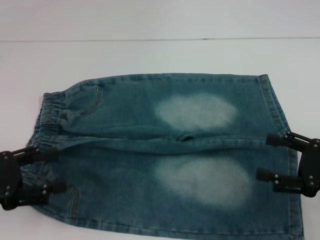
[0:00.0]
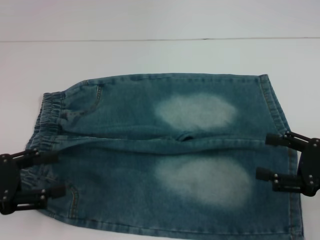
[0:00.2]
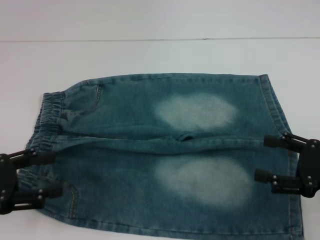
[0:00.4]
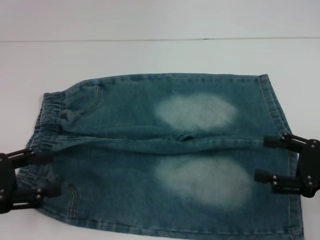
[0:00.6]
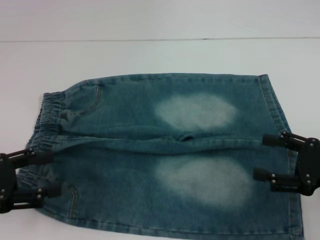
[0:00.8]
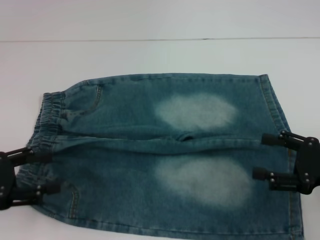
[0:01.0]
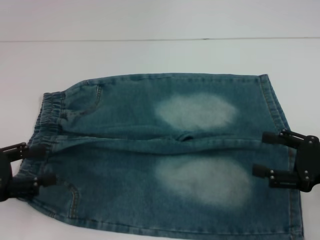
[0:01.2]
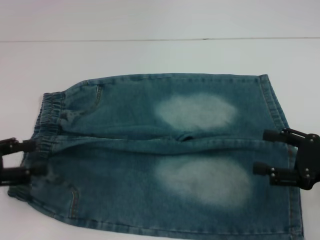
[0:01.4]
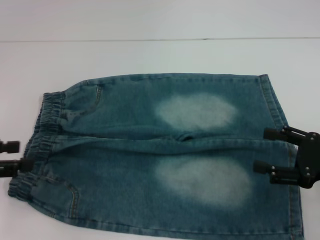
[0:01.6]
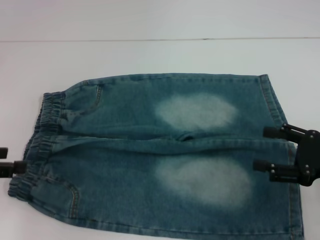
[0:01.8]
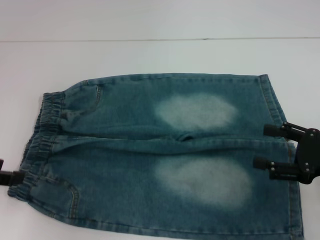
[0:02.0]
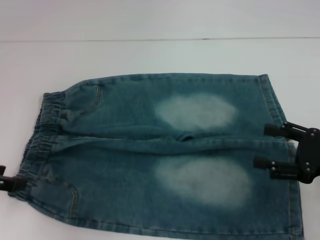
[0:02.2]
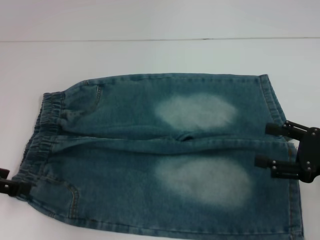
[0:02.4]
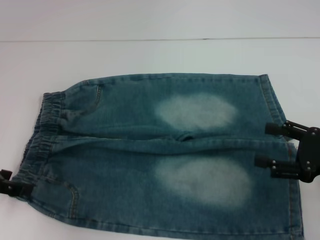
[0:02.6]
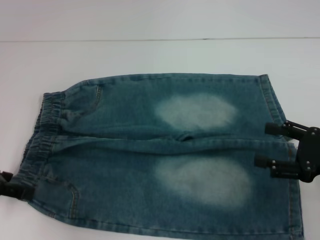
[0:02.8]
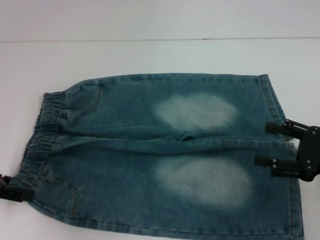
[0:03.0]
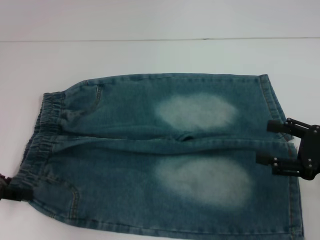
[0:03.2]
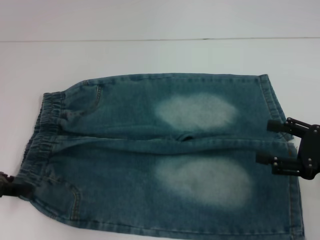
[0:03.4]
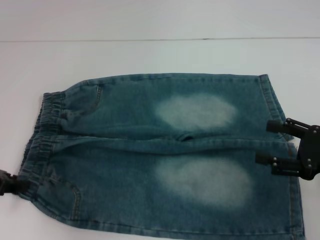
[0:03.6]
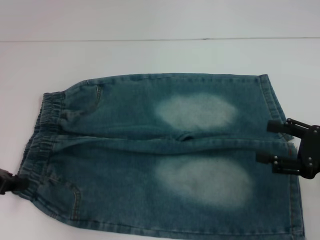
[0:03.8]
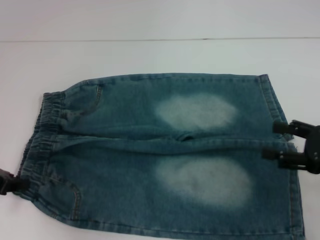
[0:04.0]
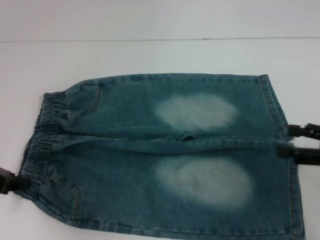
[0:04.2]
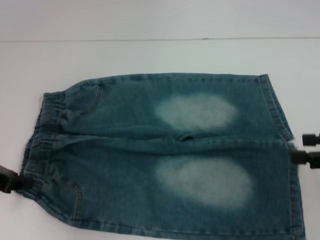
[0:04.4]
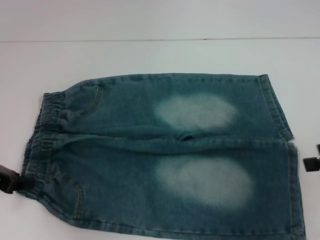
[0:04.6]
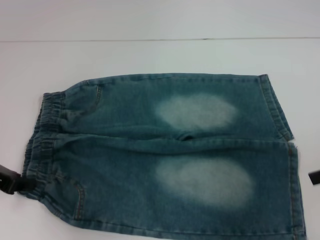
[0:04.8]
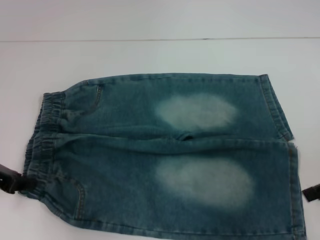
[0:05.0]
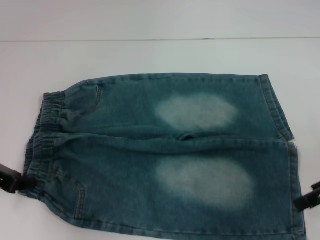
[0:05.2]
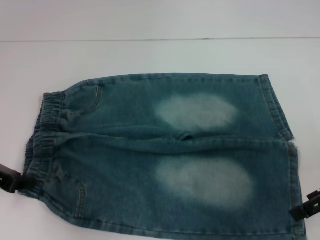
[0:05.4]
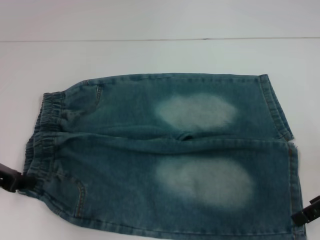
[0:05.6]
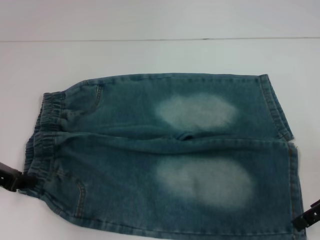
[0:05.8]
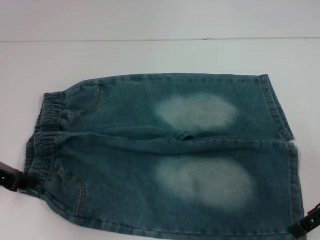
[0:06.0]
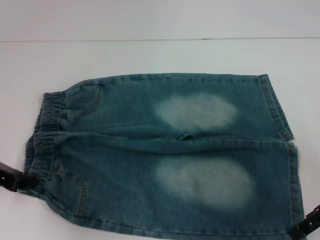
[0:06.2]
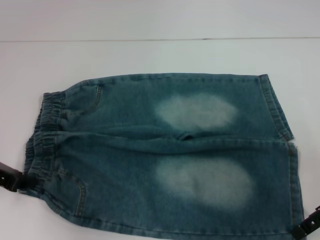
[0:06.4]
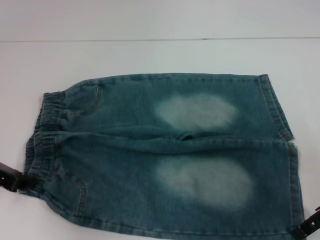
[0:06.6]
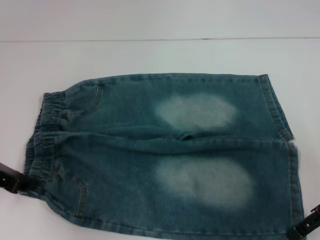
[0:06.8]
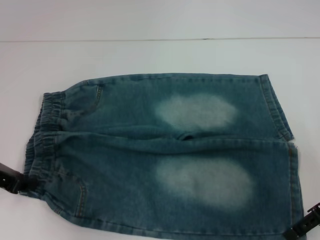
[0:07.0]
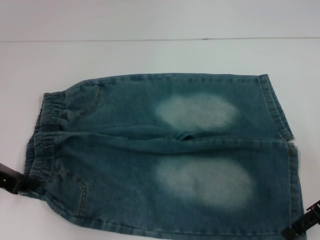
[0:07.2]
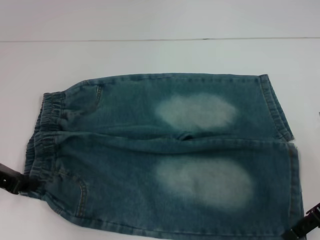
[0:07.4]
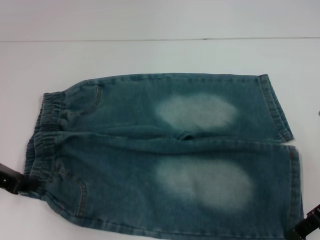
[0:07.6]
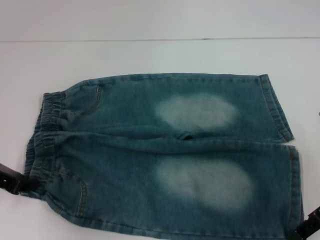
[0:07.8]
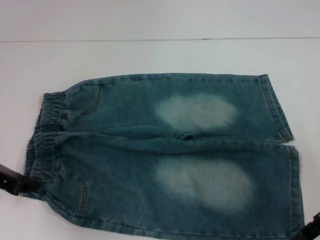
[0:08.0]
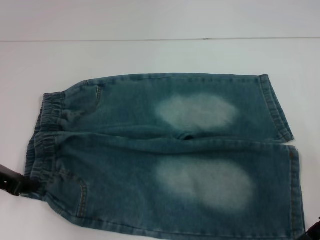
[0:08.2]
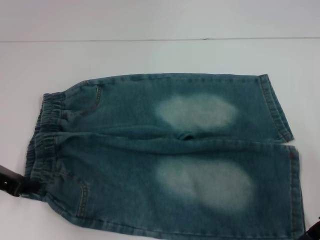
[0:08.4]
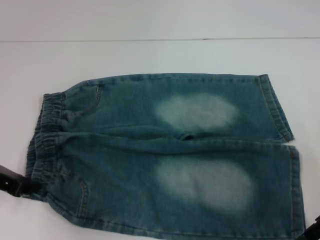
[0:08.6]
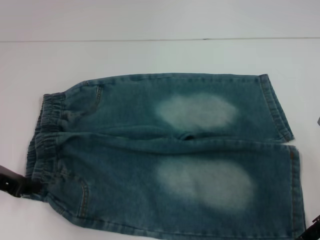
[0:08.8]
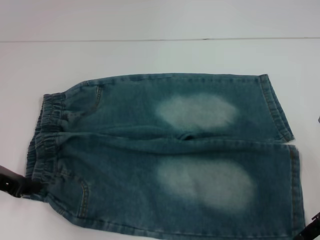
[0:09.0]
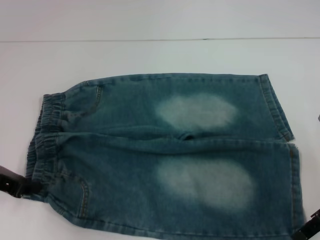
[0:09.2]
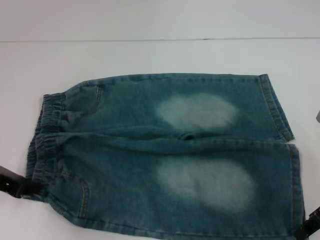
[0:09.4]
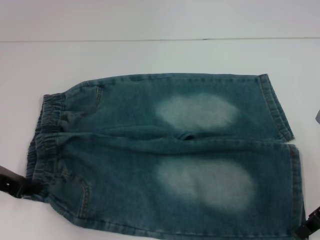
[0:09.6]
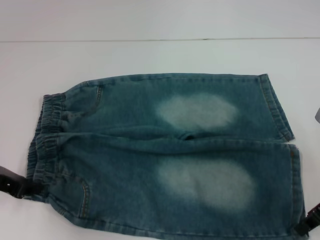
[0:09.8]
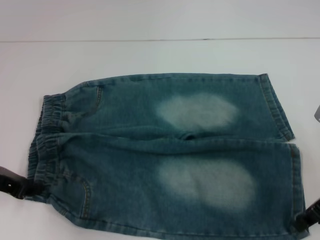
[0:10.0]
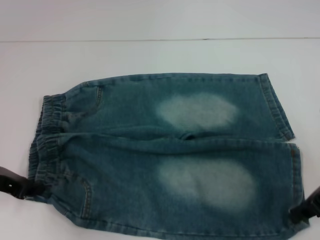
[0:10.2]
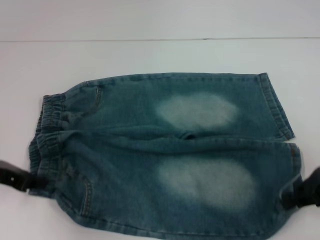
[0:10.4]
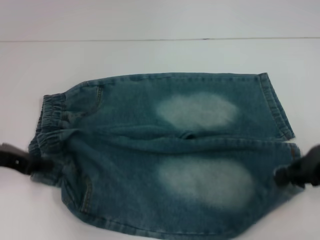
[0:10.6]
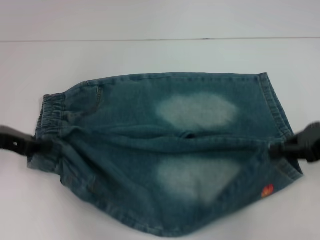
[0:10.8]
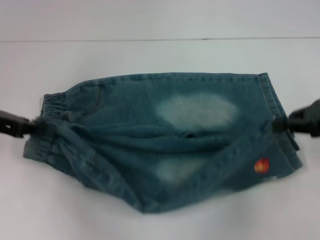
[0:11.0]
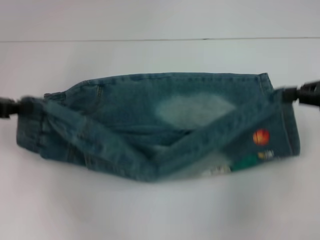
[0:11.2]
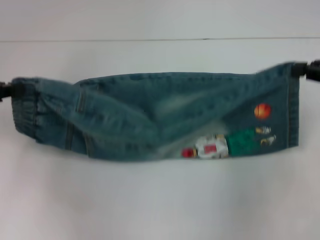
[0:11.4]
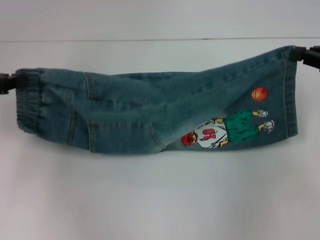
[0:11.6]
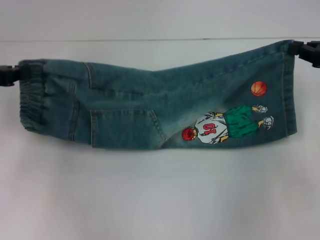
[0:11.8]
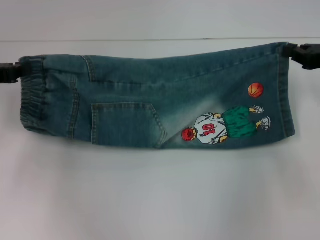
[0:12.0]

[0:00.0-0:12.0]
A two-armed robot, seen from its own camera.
Step, 0:00.0 to 0:04.2: Hold the lower left waistband with your left hand.
Step, 0:04.4 to 0:09.8: Grab the lower right pant leg with your right hand.
0:00.0 to 0:01.6: The left gripper moves about 5 cm.
0:03.0 to 0:04.4: The right gripper moves upward, some 5 cm; the left gripper closes.
0:04.4 to 0:06.0: The right gripper shifts some 5 cm to the left.
0:06.0 to 0:07.6: The grippers stay close to where they were, moving slightly.
0:07.6 to 0:09.0: The two grippers keep their place.
0:09.0 to 0:10.4: The right gripper closes up.
0:10.4 to 0:12.0: The left gripper goes approximately 5 cm upward, while the right gripper travels forward by about 5 cm.

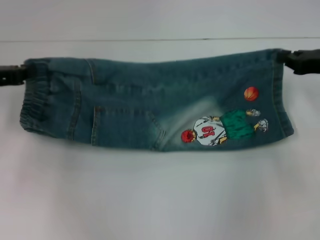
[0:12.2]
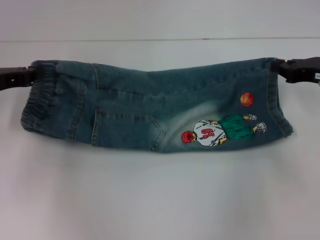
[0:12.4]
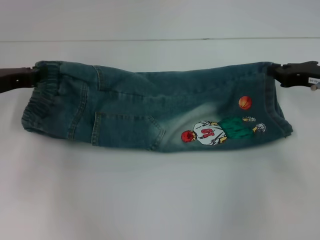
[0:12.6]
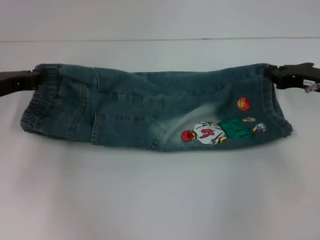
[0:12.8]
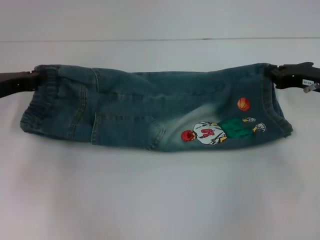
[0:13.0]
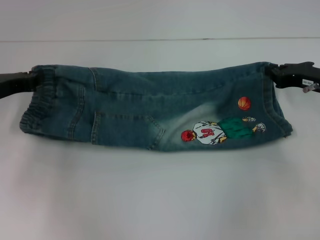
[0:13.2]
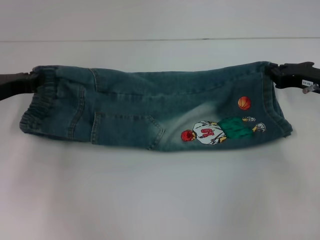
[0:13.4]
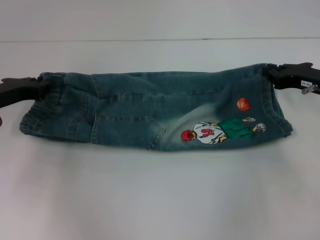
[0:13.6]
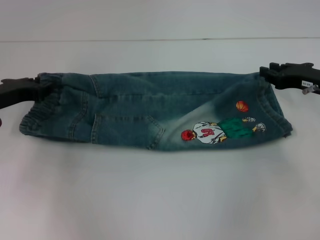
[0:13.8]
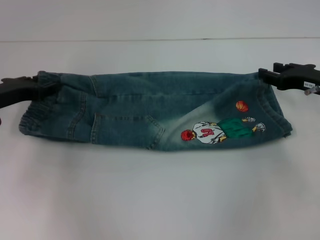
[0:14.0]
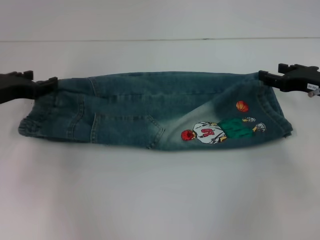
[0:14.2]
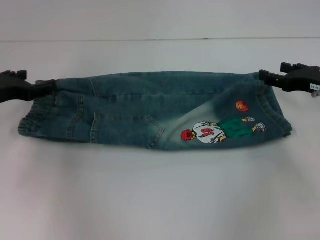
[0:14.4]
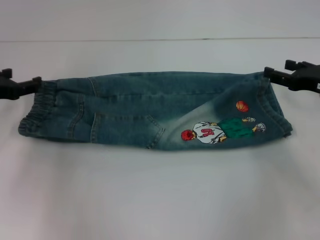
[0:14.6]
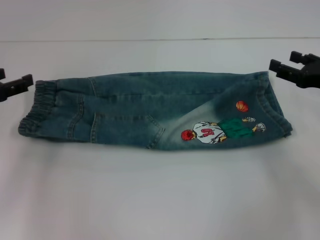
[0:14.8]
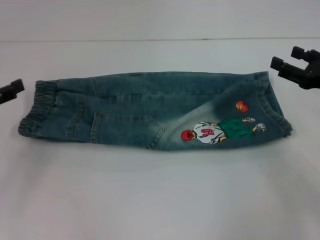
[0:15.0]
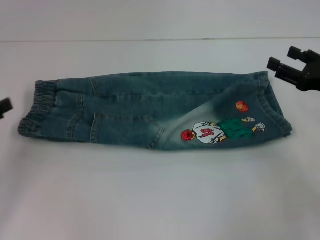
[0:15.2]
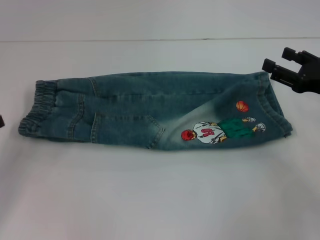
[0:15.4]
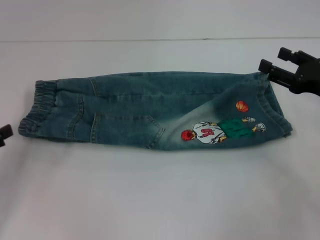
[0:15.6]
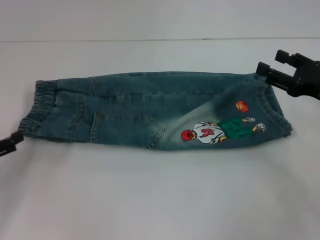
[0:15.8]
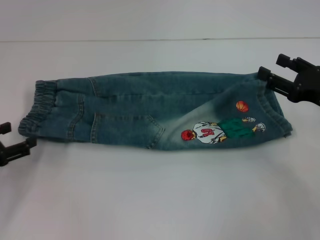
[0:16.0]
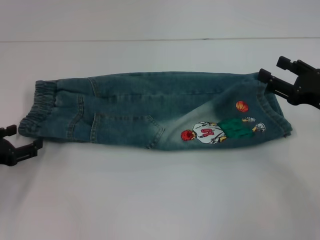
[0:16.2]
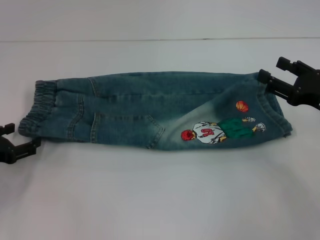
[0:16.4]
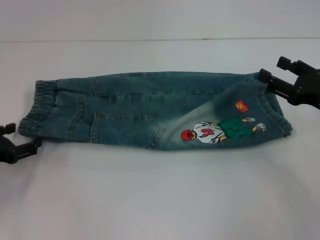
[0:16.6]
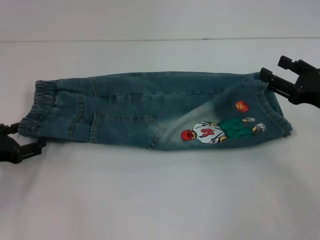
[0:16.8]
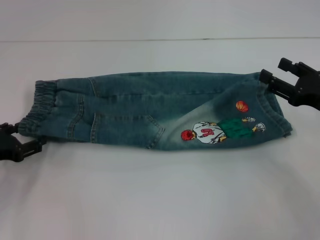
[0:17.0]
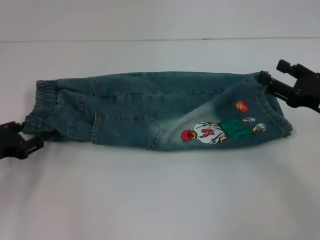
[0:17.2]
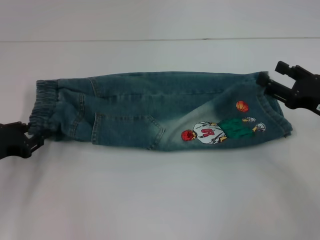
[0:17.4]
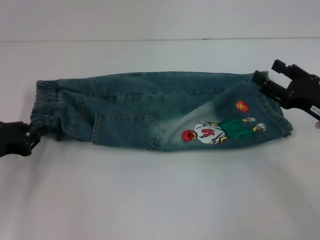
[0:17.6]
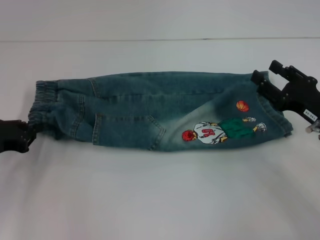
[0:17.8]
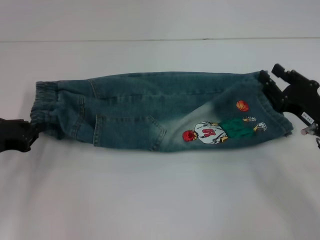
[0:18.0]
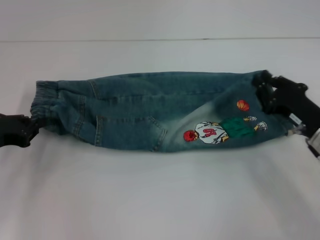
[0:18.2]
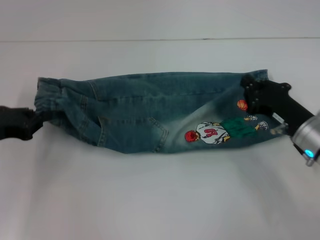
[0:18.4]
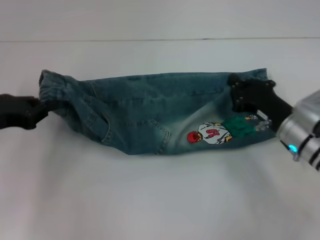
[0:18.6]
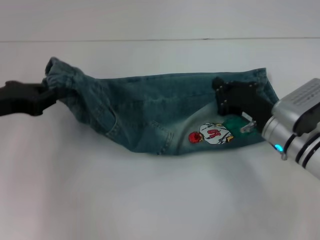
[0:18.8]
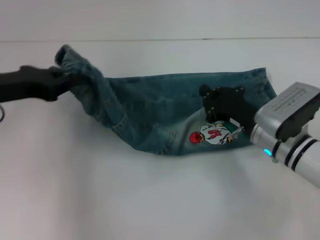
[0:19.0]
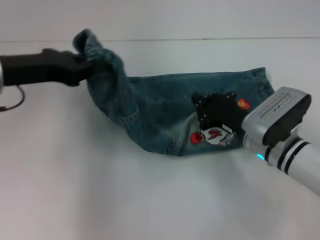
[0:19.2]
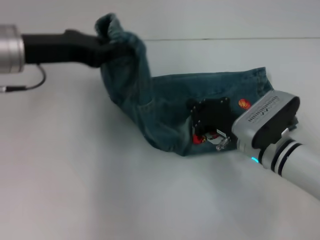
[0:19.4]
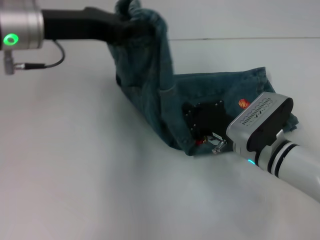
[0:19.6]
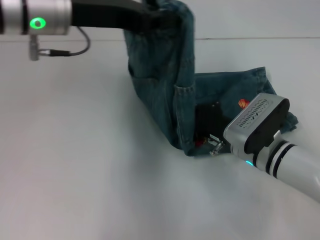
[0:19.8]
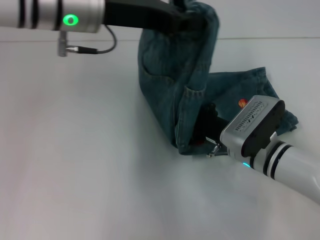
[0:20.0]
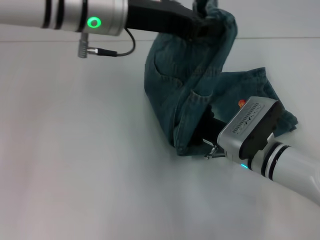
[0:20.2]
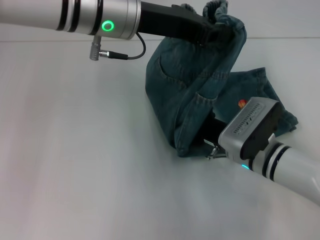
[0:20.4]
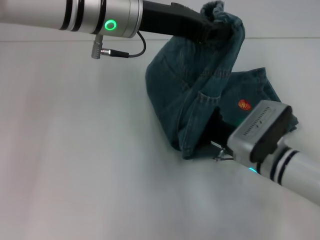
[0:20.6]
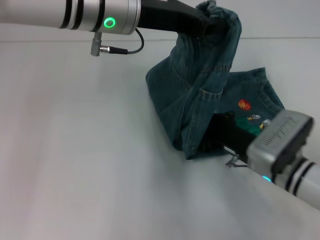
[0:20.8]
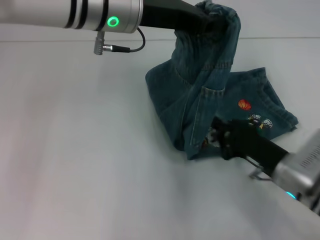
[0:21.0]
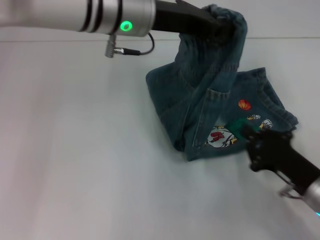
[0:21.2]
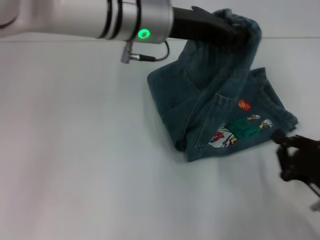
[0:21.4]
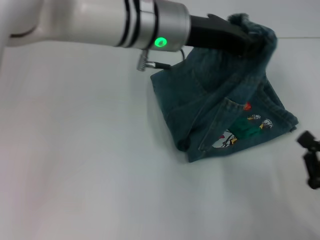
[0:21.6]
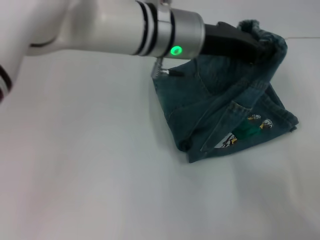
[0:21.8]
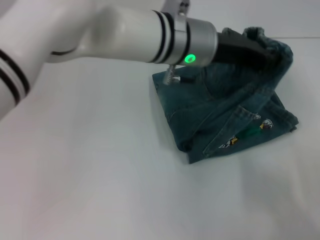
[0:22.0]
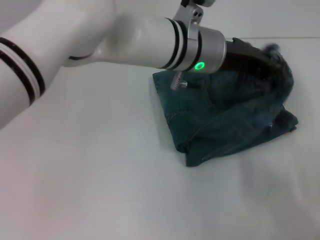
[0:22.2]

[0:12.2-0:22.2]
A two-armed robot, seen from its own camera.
Step, 0:12.2 to 0:14.2: Fold upward with your right hand.
Step, 0:14.4 to 0:17.8: Hold the waistband with your left hand.
Step, 0:18.0 to 0:20.8: Press the middle of the pants with your right hand.
0:12.2 to 0:13.6: The grippers move only a little.
0:13.6 to 0:15.0: The left gripper heads backward and to the left, covering about 10 cm, and opens up; the right gripper shifts some 5 cm backward, and opens up.
0:15.0 to 0:16.4: The left gripper heads downward, covering some 5 cm.
0:16.4 to 0:18.0: The right gripper changes place by about 5 cm; the left gripper closes.
0:18.0 to 0:19.4: The right gripper moves to the left, approximately 10 cm, and closes up, while the left gripper goes roughly 20 cm upward, to the right and forward.
0:19.4 to 0:20.8: The left gripper moves to the right, roughly 15 cm.
0:20.8 to 0:22.2: The right gripper heads to the right and backward, covering some 20 cm, while the left gripper heads to the right and downward, covering about 10 cm.
